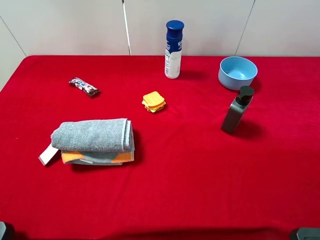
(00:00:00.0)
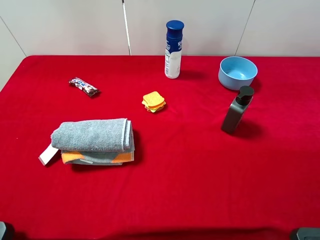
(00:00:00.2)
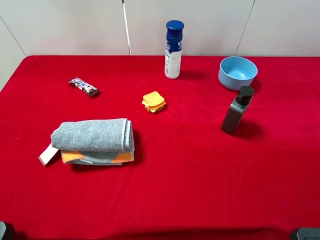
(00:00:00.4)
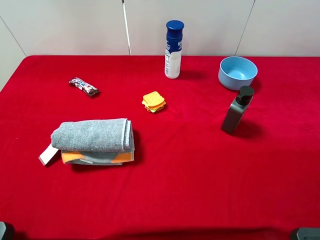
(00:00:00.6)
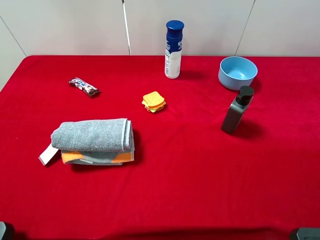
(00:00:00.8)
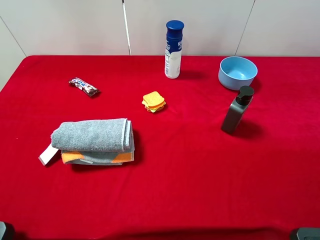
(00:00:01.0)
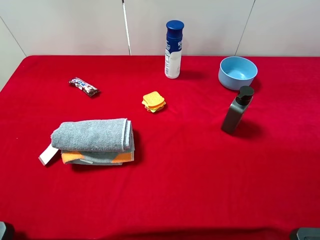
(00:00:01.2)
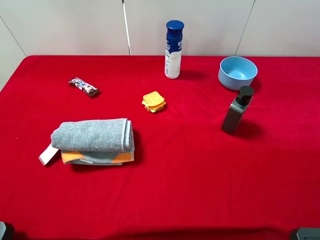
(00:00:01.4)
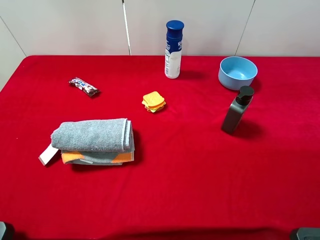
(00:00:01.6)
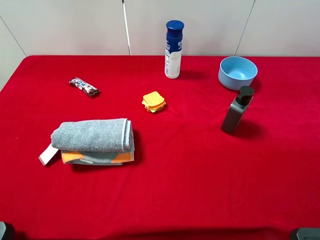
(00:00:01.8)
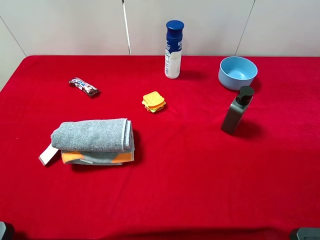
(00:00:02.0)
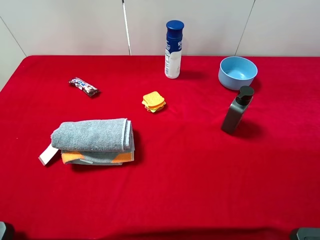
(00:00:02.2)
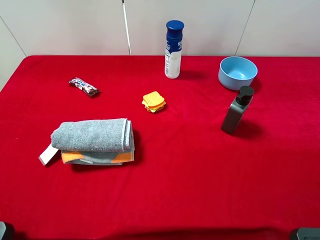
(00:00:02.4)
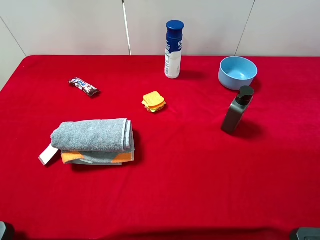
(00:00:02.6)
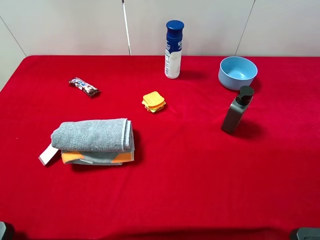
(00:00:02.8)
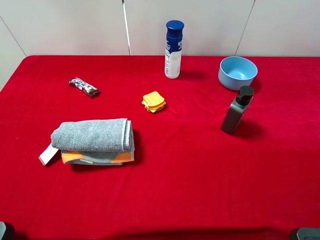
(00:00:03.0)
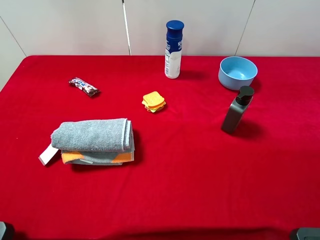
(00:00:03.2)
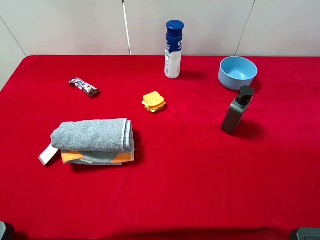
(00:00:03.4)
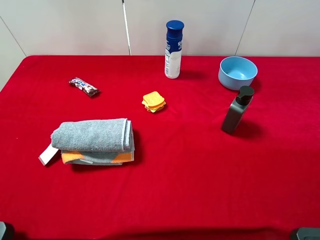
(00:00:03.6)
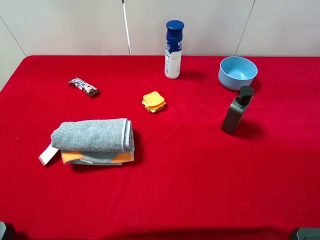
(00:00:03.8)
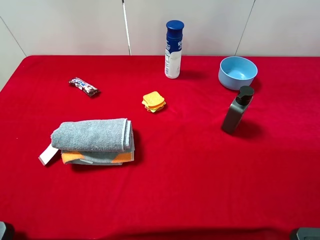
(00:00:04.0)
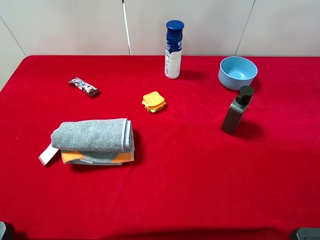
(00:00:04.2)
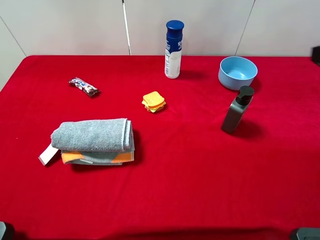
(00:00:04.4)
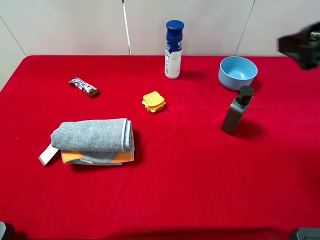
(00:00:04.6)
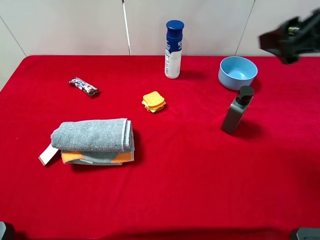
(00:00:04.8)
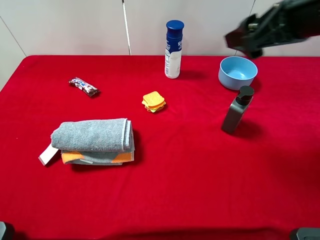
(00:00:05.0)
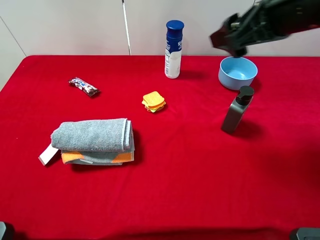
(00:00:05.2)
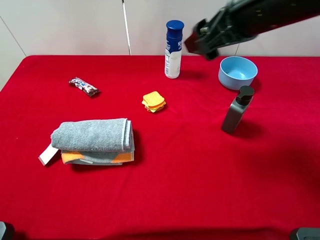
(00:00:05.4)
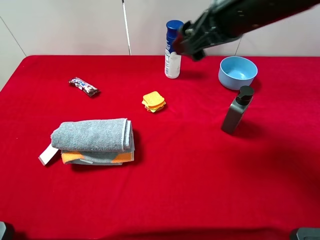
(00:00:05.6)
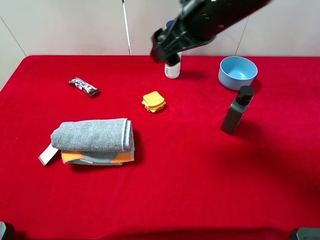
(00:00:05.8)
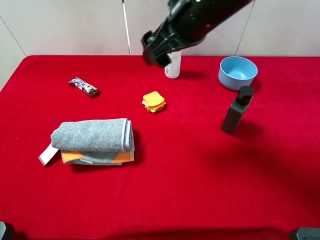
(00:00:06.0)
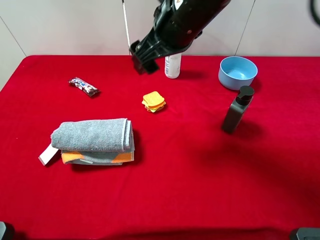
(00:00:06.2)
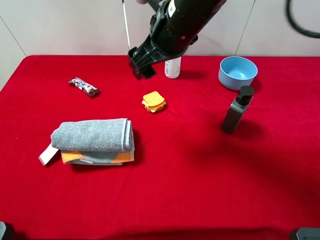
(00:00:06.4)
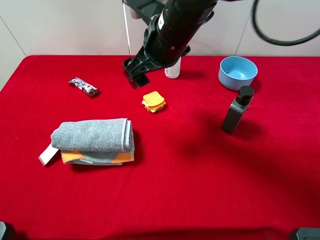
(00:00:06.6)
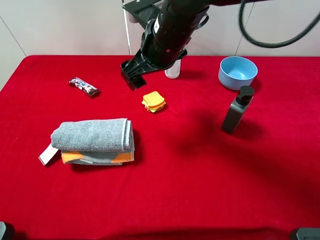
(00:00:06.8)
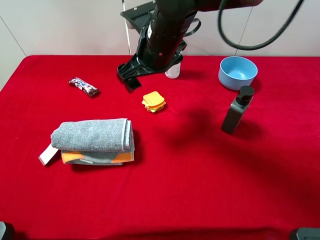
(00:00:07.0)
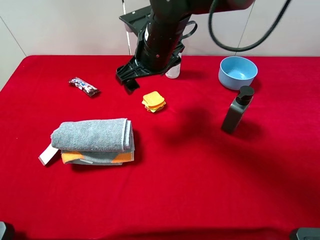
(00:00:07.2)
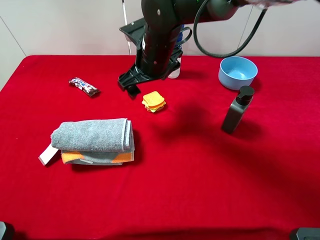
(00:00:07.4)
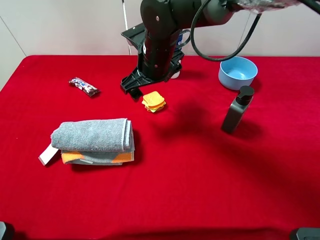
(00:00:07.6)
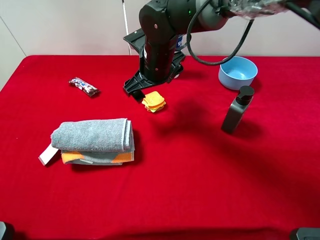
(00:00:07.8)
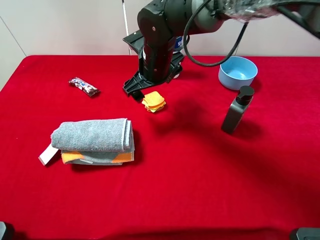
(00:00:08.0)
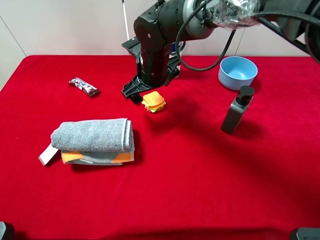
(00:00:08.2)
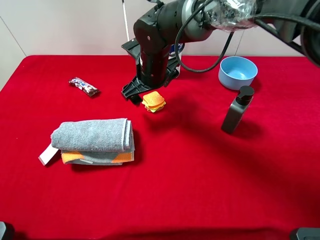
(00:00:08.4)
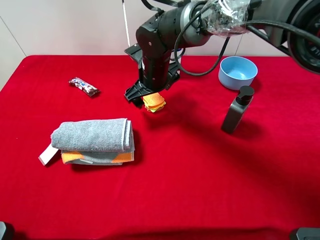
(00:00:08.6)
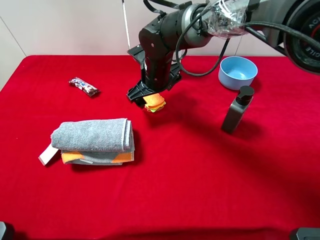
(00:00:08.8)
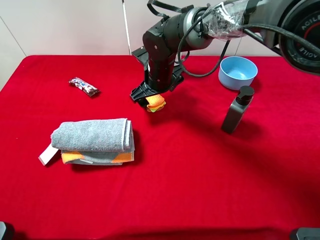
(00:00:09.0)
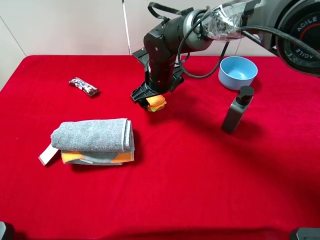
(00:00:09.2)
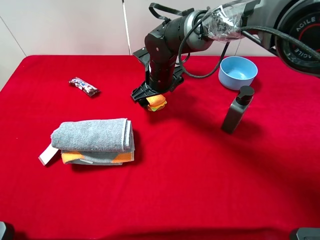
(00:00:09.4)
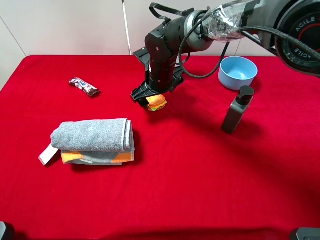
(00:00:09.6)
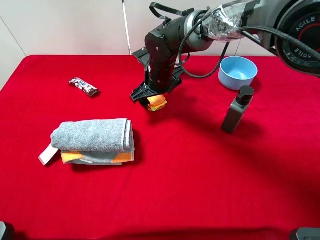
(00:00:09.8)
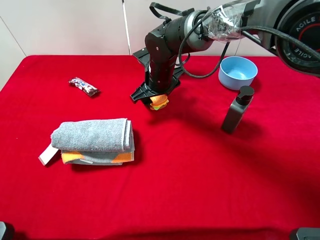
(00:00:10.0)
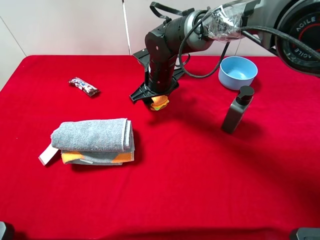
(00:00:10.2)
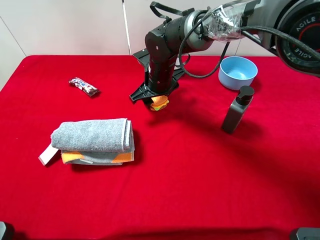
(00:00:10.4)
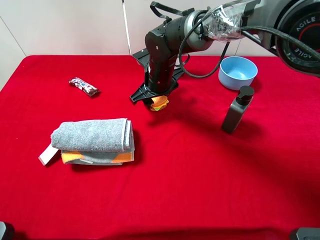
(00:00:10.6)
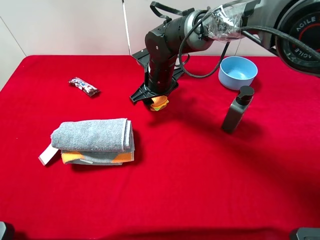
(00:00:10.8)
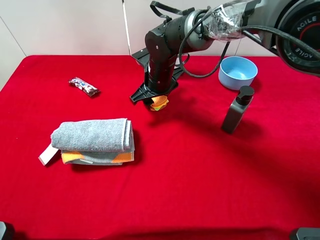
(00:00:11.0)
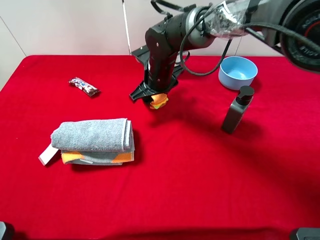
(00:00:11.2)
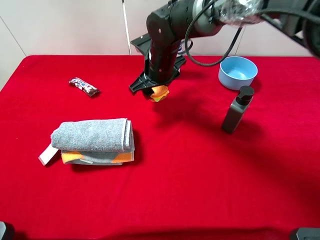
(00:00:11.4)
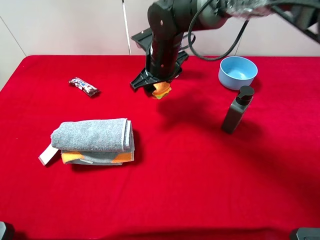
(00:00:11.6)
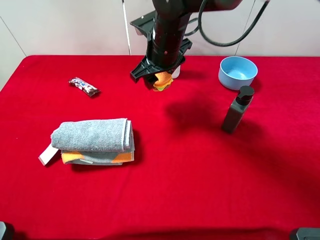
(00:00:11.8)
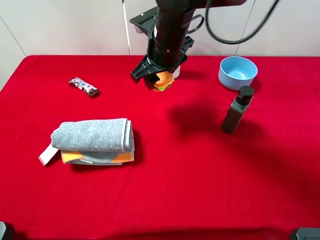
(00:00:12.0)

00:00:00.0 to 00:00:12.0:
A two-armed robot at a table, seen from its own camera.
Task of the whole recording: the gripper move the object.
Step, 00:00:00.0 to 00:00:10.4: Grasp the sandwich biscuit with the right gripper.
00:00:00.0 to 00:00:03.0: Both grippers stay put.
00:00:04.4 to 00:00:06.0: The right gripper shifts some 25 cm to the left and forward.
00:00:06.0 to 00:00:07.6: The right gripper shifts roughly 15 cm downward, to the left and forward.
00:00:07.6 to 00:00:09.0: The right gripper heads downward, covering approximately 5 cm.
00:00:09.0 to 00:00:10.4: The right gripper closes its fingers.
00:00:10.4 to 00:00:12.0: The right gripper shifts some 10 cm upward.

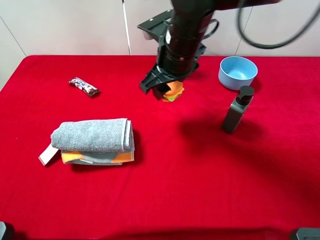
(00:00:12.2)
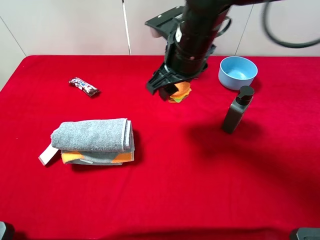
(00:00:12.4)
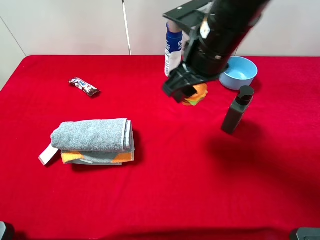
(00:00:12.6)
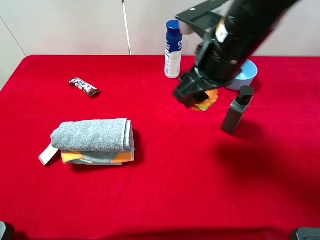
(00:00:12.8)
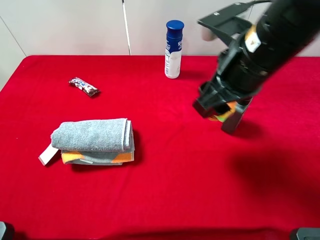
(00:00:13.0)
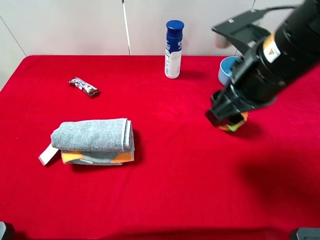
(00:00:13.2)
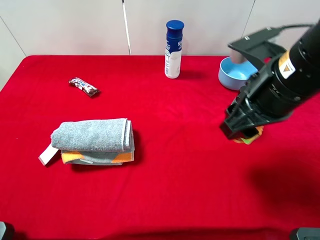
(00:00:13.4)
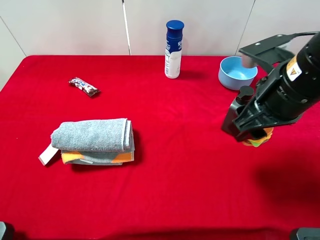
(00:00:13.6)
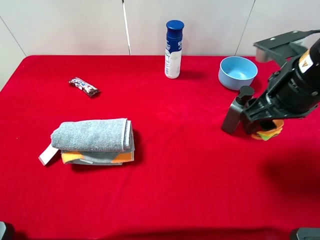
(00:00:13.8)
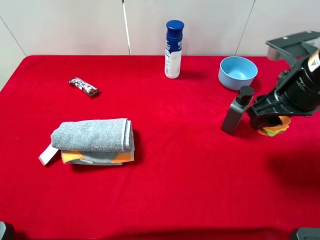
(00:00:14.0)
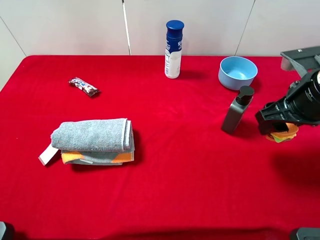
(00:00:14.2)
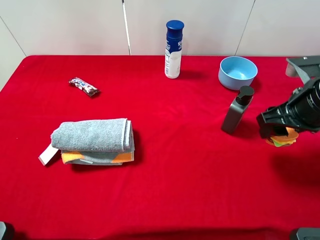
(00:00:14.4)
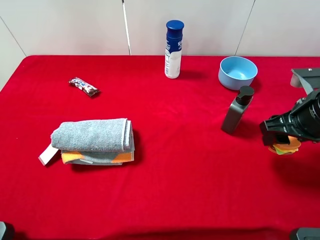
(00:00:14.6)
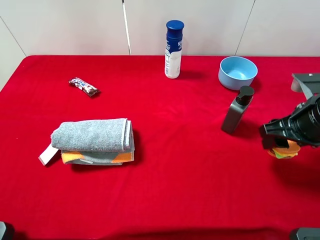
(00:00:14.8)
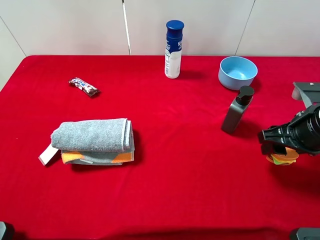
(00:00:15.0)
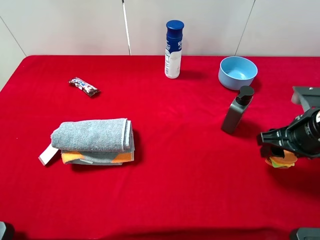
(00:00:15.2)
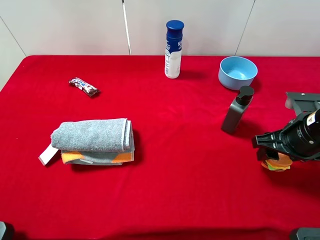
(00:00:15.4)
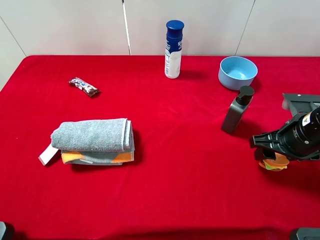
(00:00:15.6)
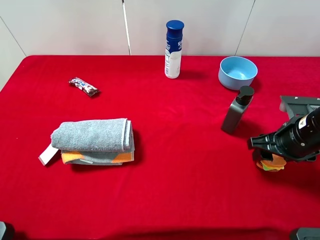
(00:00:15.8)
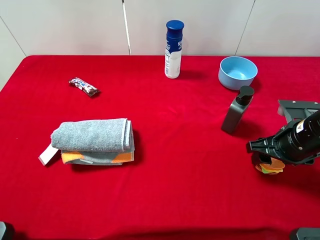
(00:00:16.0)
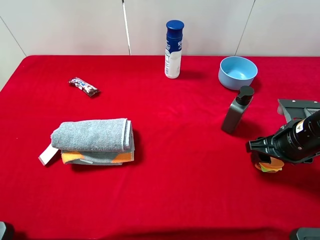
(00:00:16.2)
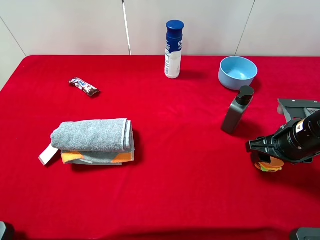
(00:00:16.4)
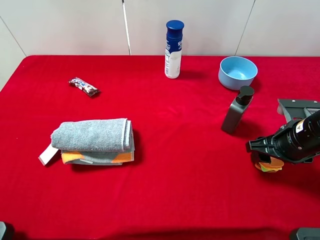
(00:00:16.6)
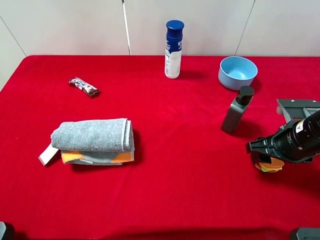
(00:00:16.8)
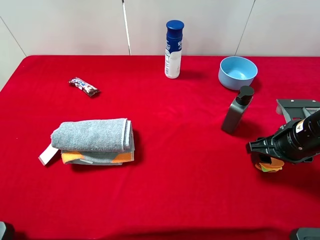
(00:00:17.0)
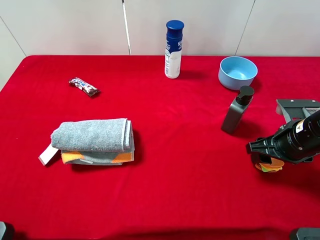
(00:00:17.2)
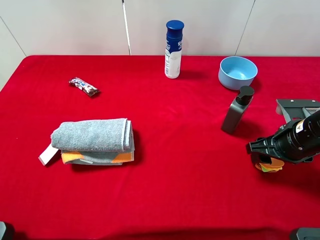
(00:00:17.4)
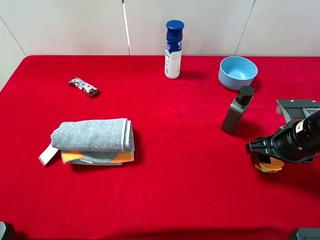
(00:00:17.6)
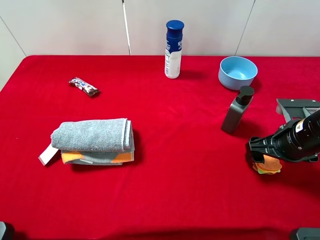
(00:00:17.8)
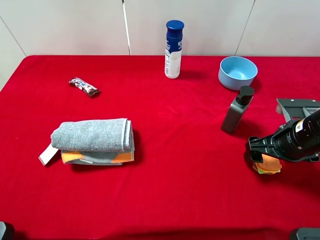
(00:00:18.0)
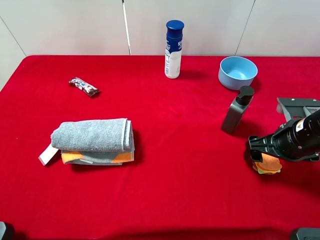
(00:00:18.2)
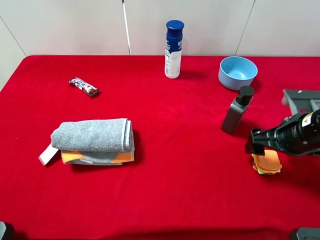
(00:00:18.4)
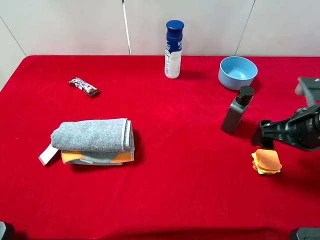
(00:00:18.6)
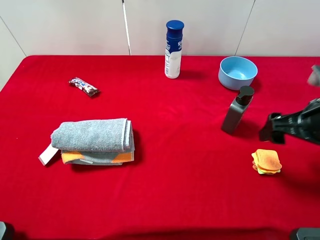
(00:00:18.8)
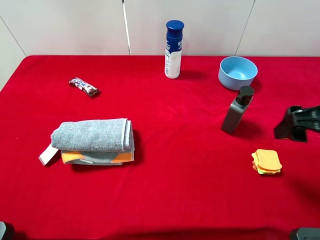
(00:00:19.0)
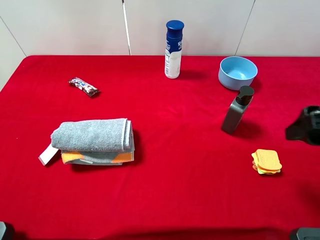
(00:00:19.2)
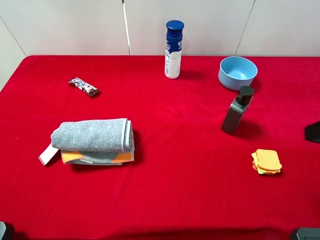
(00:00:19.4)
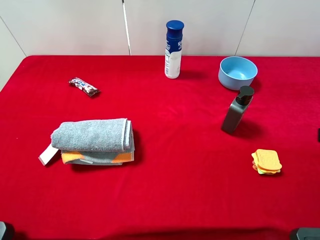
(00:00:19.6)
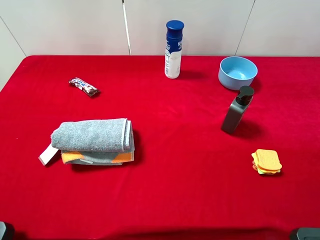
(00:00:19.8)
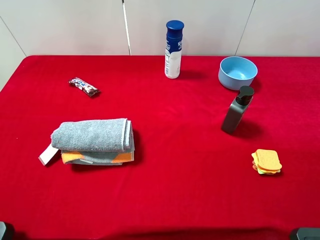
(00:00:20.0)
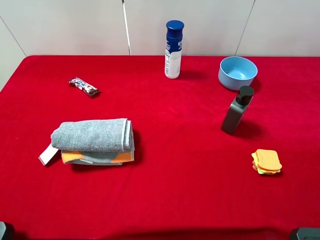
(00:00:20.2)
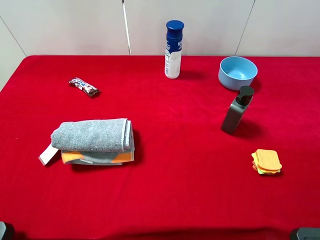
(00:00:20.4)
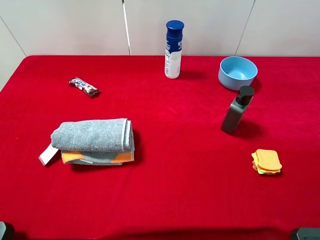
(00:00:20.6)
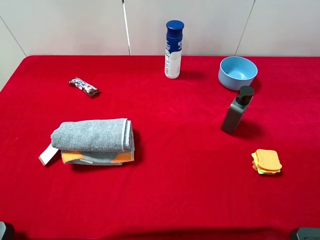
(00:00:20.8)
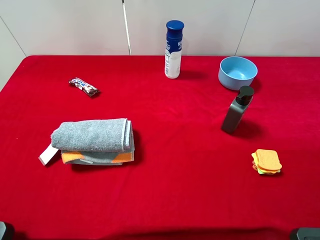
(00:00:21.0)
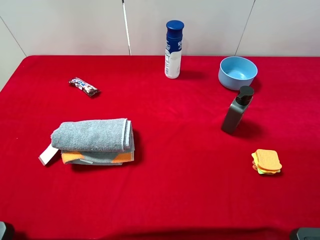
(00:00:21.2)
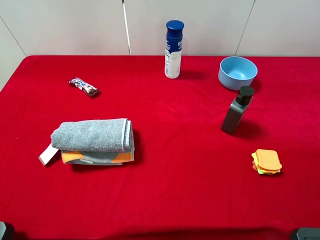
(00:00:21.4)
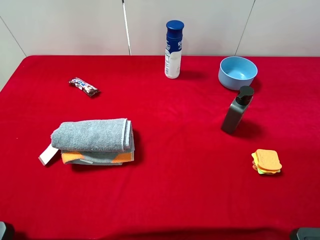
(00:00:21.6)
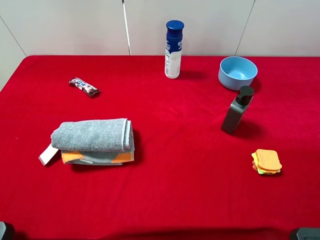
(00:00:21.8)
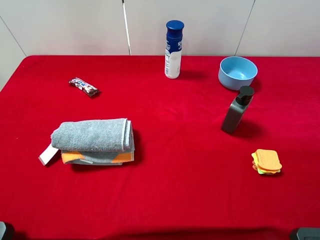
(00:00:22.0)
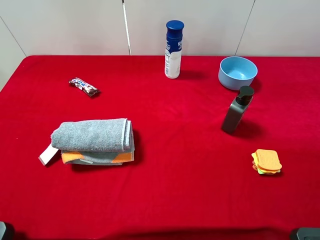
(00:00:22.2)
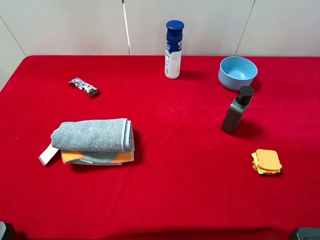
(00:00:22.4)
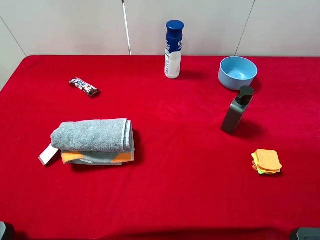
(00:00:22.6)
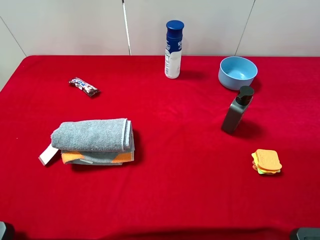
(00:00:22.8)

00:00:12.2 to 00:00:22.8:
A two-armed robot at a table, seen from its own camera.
Task of the whole recording: the gripper move the object.
Step, 00:00:12.2 to 00:00:18.6: Place the sandwich biscuit on the table with the right gripper.
00:00:12.2 to 00:00:13.8: The right gripper moves to the right and backward, roughly 20 cm.
00:00:13.8 to 00:00:15.2: The right gripper travels downward and to the right by approximately 10 cm.
00:00:15.2 to 00:00:16.8: There are only small adjustments of the grippers.
00:00:16.8 to 00:00:18.2: The right gripper opens up.
00:00:18.2 to 00:00:19.8: The right gripper travels upward and backward by about 20 cm.
